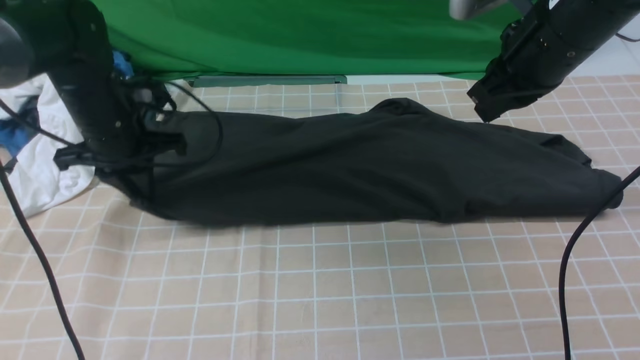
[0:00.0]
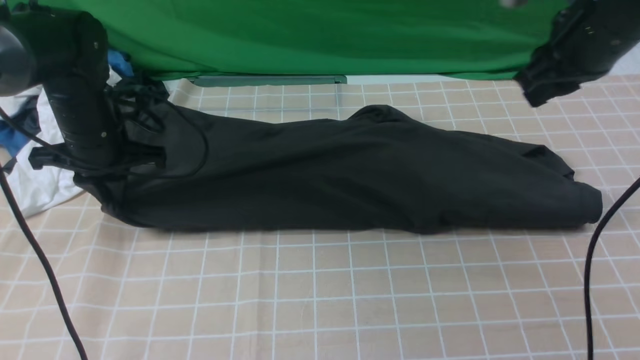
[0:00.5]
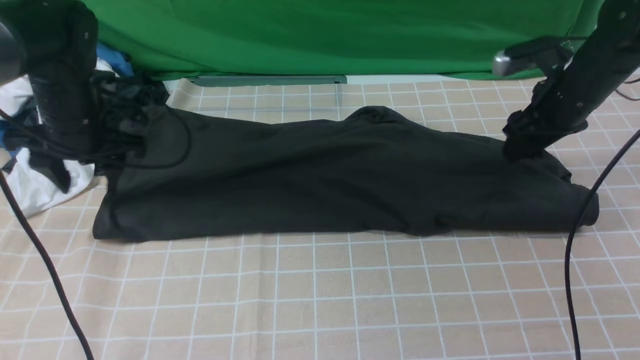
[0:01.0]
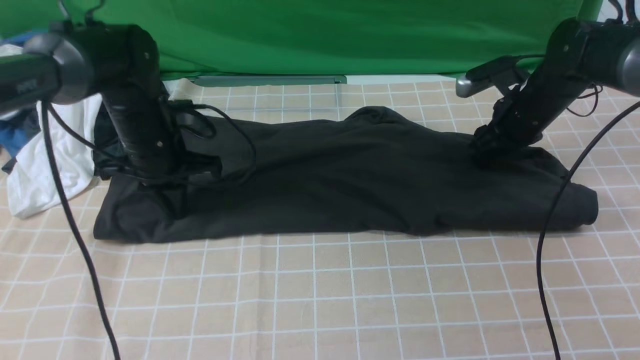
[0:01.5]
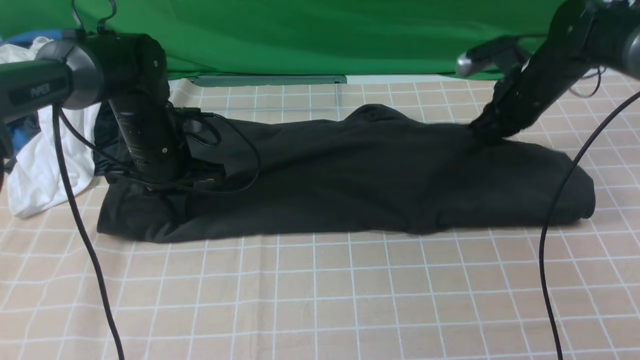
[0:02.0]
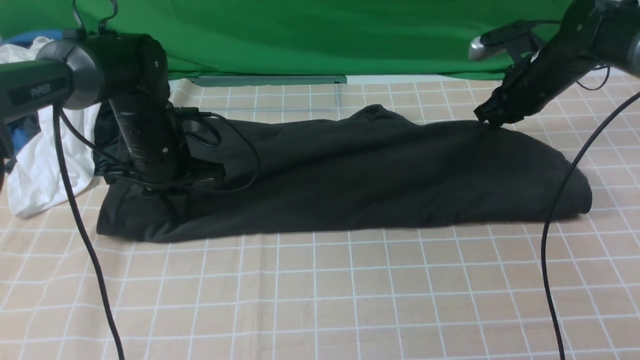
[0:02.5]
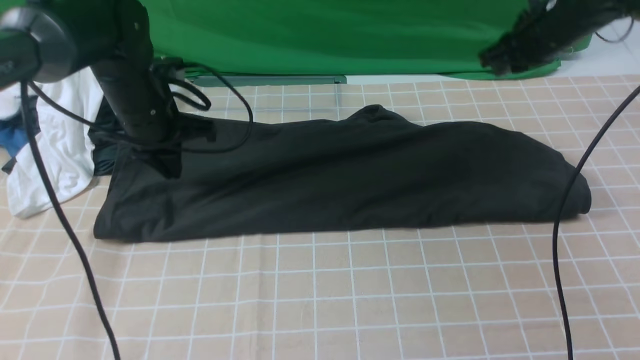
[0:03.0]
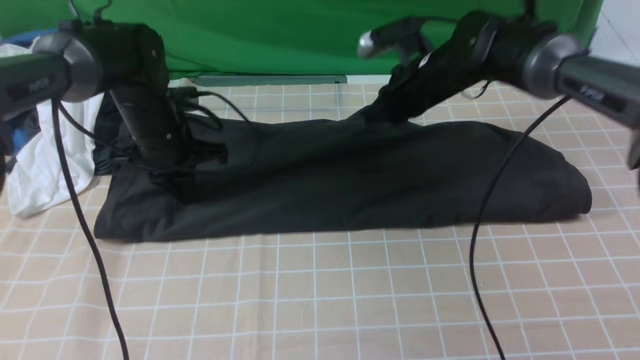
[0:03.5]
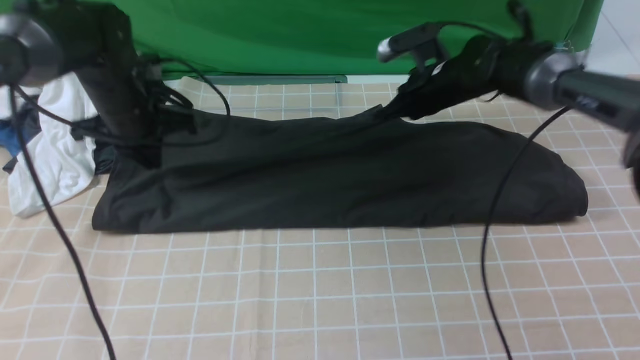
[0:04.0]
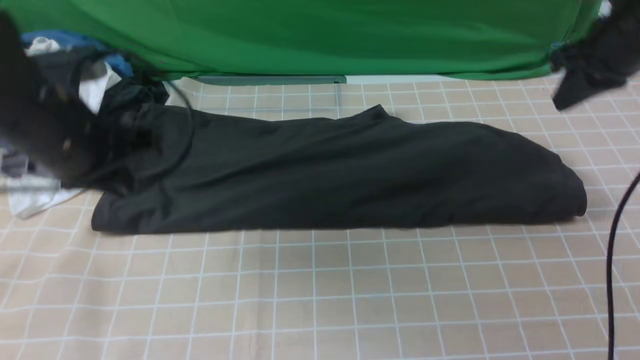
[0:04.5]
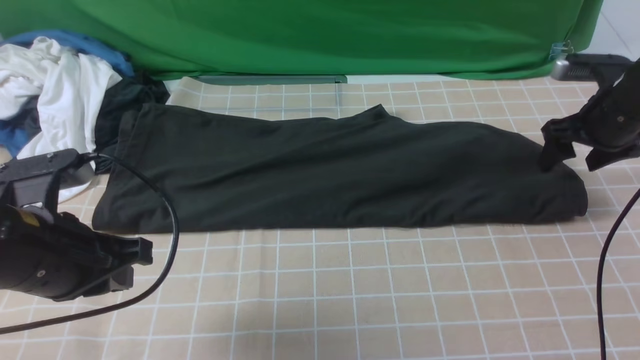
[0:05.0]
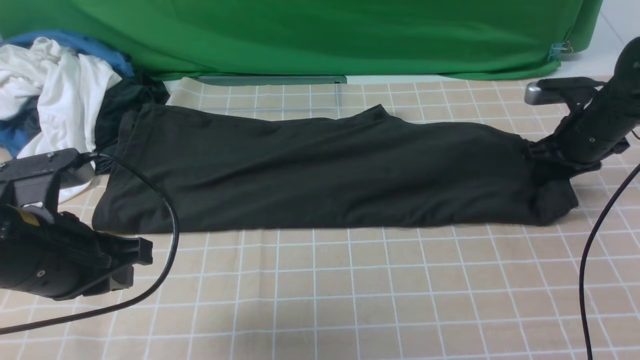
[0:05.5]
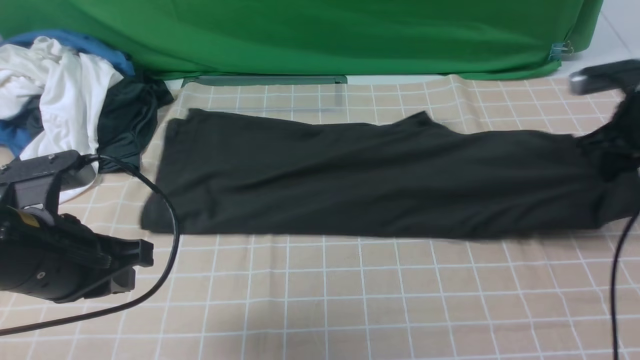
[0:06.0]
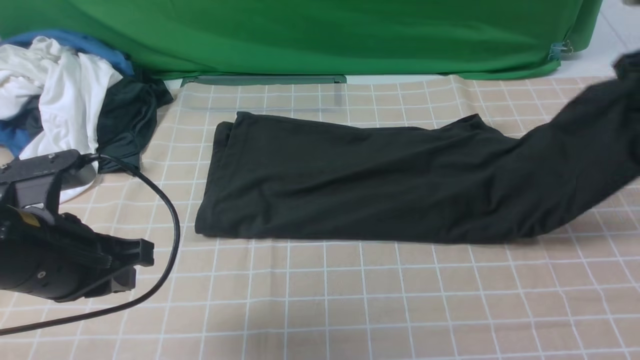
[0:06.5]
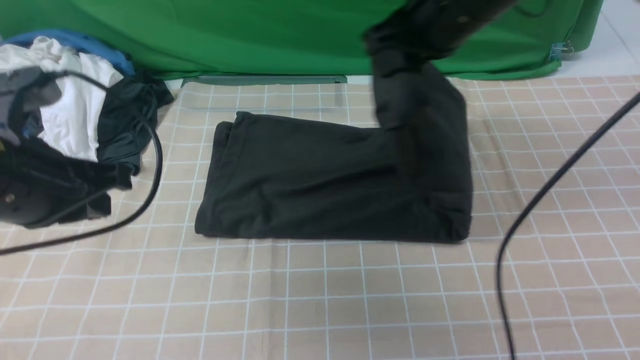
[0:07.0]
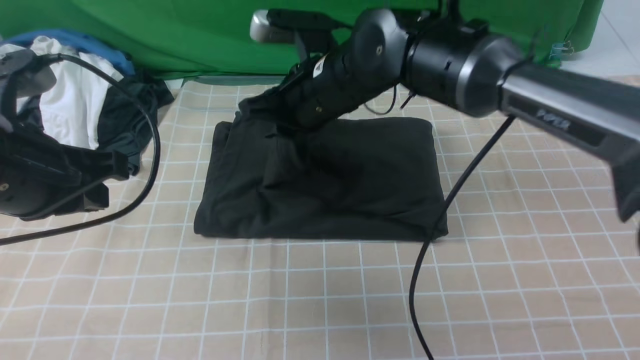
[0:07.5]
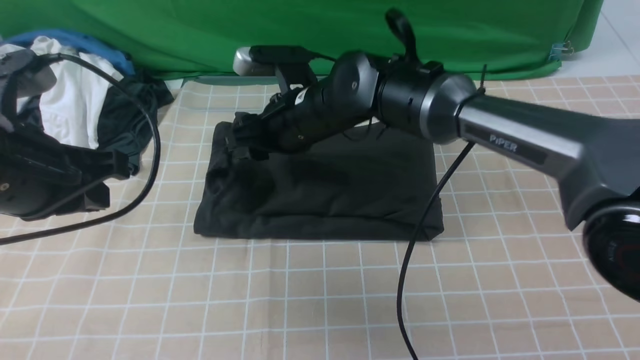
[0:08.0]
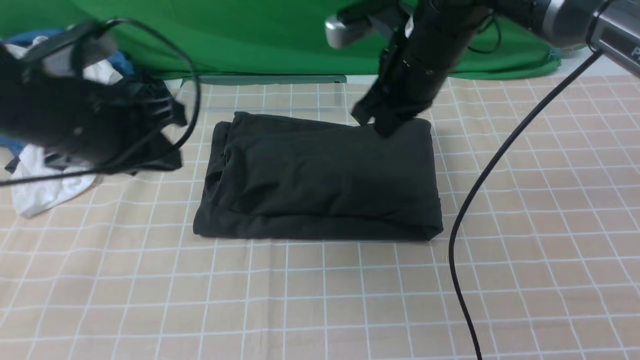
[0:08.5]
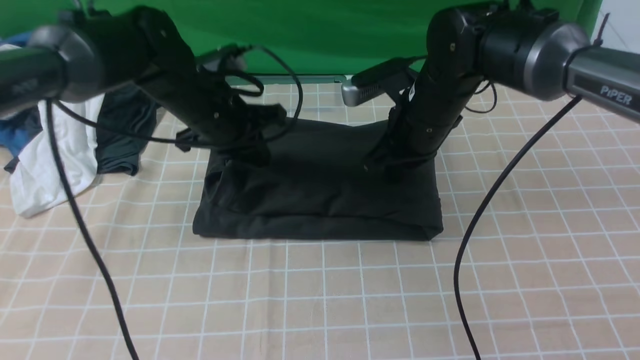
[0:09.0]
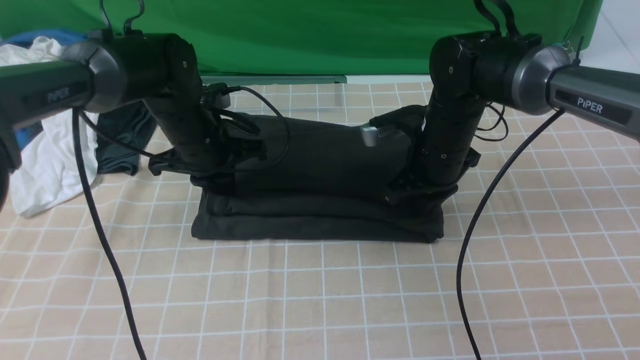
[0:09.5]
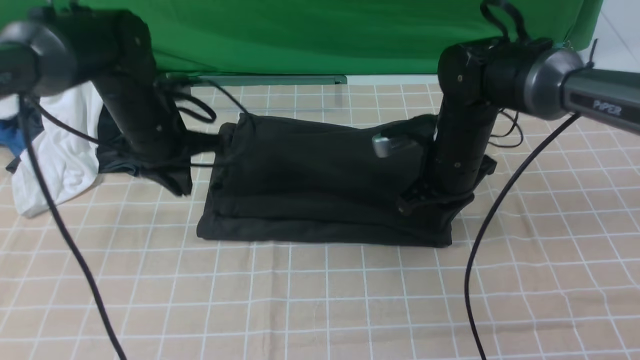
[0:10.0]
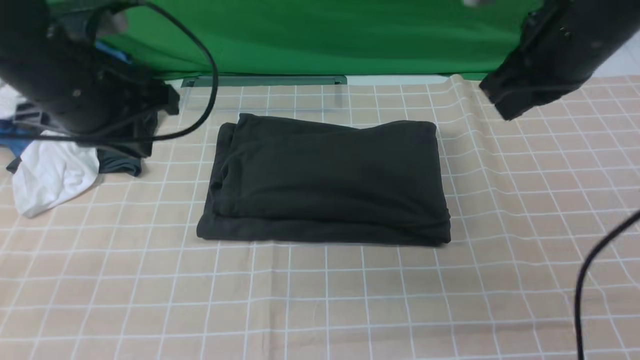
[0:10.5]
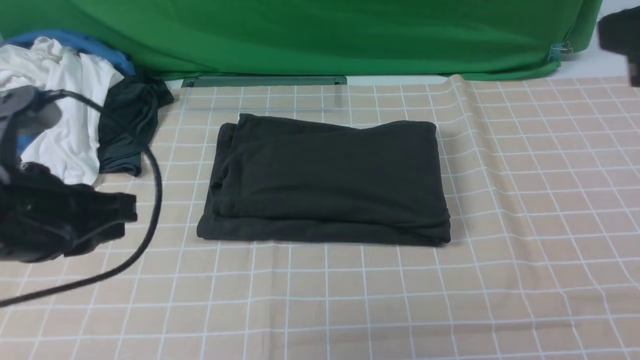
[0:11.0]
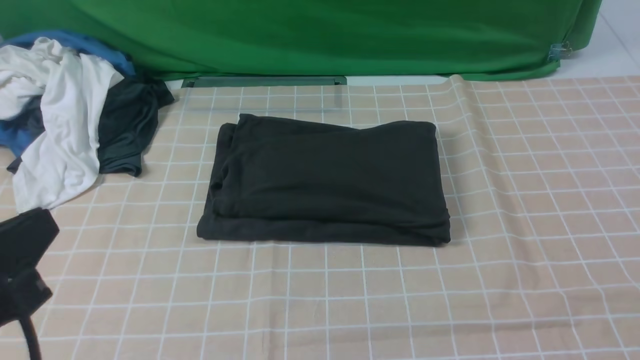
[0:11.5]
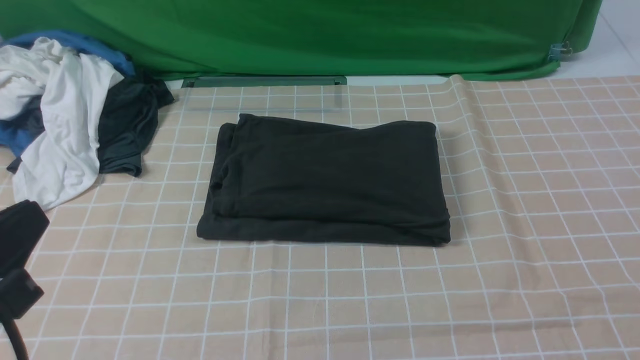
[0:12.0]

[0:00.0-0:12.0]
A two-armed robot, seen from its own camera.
Step, 0:00.0 to 0:05.0: use the right arm to clamp the right edge of the fabric.
Step, 0:06.0 to 0:08.0: use the right arm to drag the right edge of the fabric to the left and folds it over the left edge.
0:00.0 to 0:02.0: The right gripper moves downward, forward and to the right, about 20 cm, and opens, then closes again; the left gripper moves about 5 cm, and opens, then closes once more.
0:02.0 to 0:04.0: The right gripper moves to the left, approximately 10 cm; the left gripper is displaced upward by about 5 cm.
0:04.0 to 0:06.0: The left gripper travels backward by some 20 cm; the right gripper is displaced to the right and backward by some 20 cm, and opens, then closes again.
0:06.0 to 0:08.0: The right gripper shifts some 40 cm to the left, and opens. Meanwhile the left gripper moves upward, some 5 cm.
0:08.0 to 0:10.0: The left gripper travels forward and downward by some 20 cm; the right gripper shifts about 15 cm to the right, and closes.
0:10.0 to 0:12.0: The left gripper is displaced backward by approximately 30 cm; the right gripper heads backward, to the right and upward, covering some 40 cm.

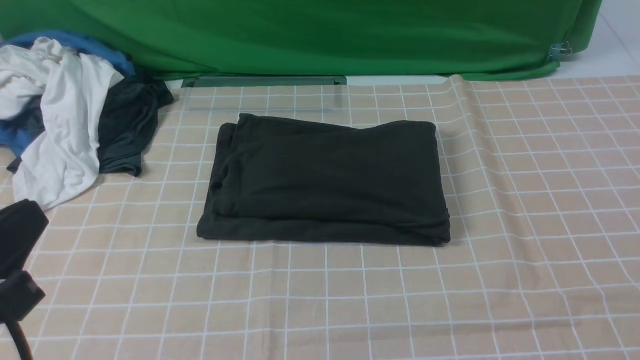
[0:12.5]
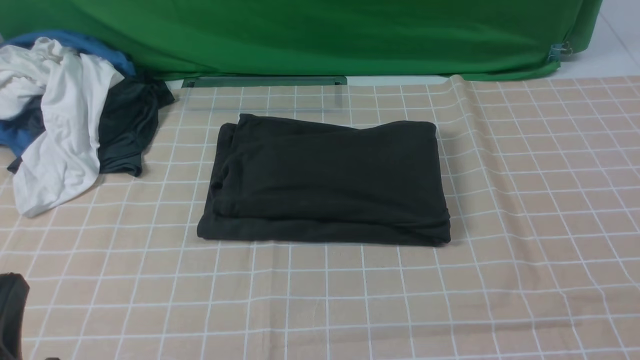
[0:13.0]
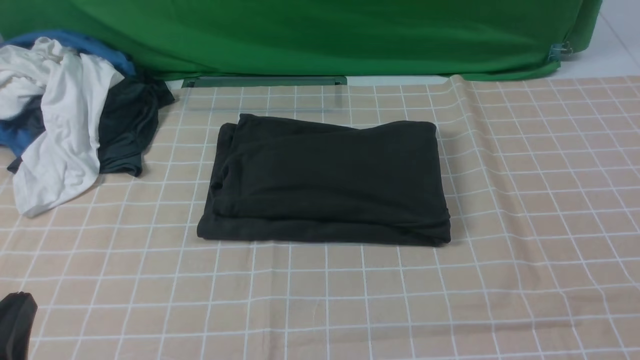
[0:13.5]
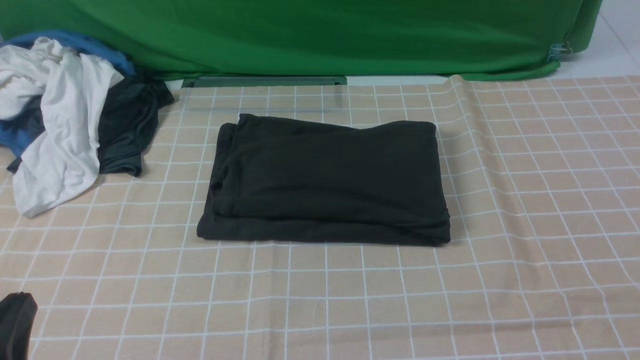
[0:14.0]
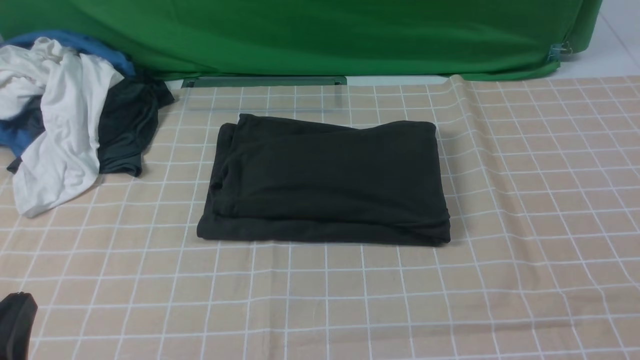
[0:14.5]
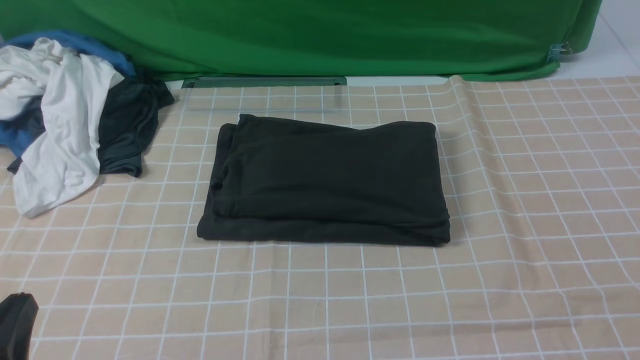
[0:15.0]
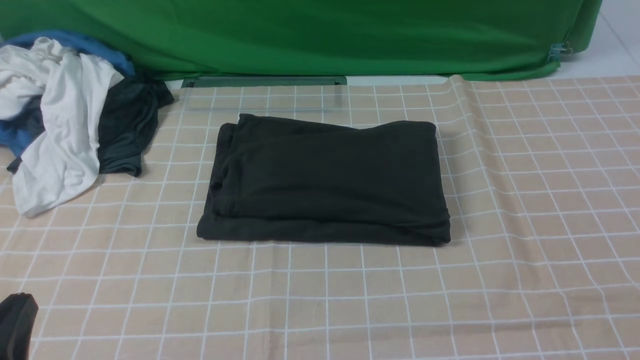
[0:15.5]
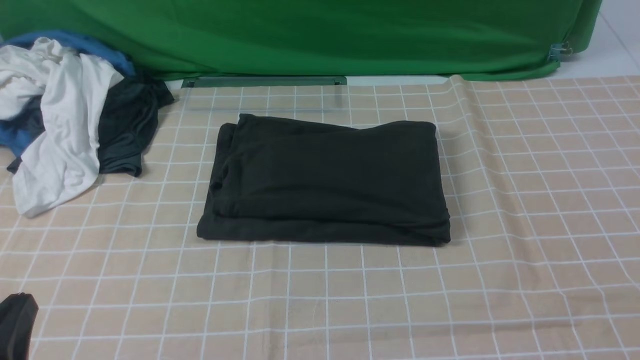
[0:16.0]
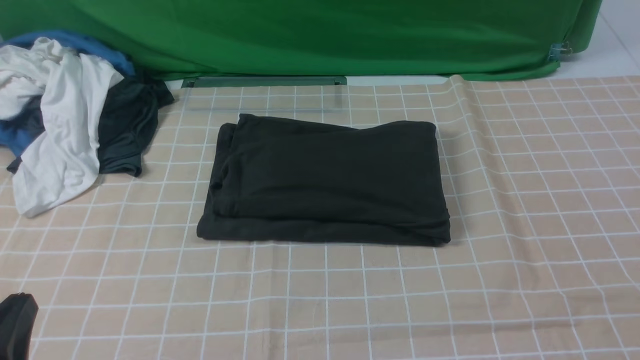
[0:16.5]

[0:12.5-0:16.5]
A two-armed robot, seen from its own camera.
0:12.5 to 0:14.5: The left gripper is displaced downward by some 10 cm.
